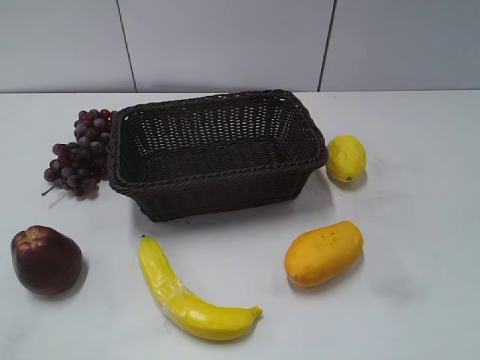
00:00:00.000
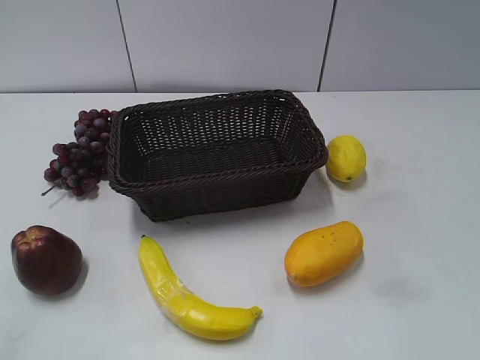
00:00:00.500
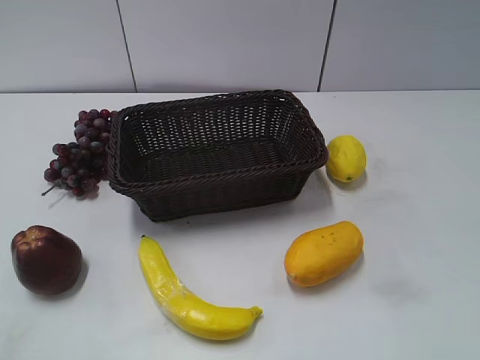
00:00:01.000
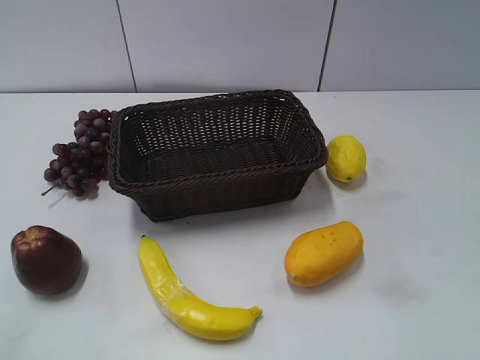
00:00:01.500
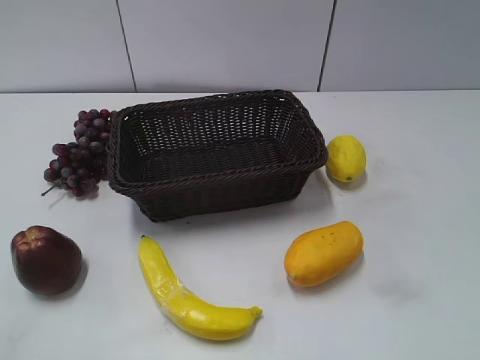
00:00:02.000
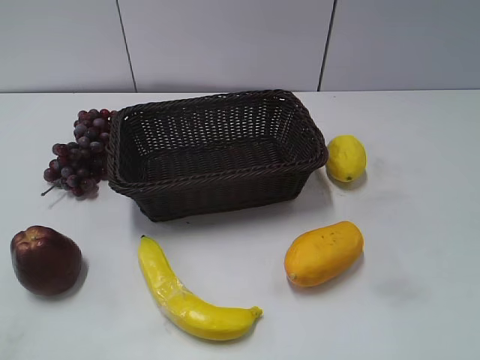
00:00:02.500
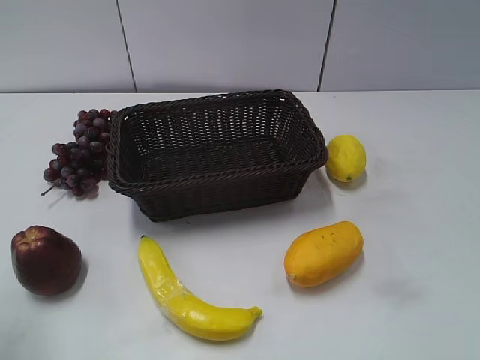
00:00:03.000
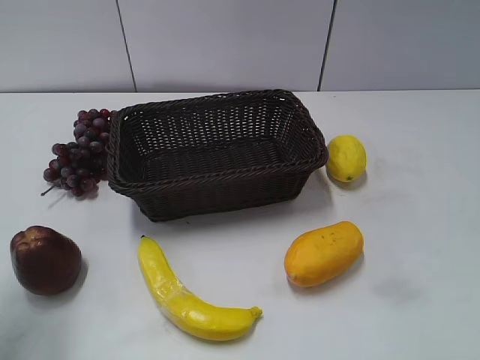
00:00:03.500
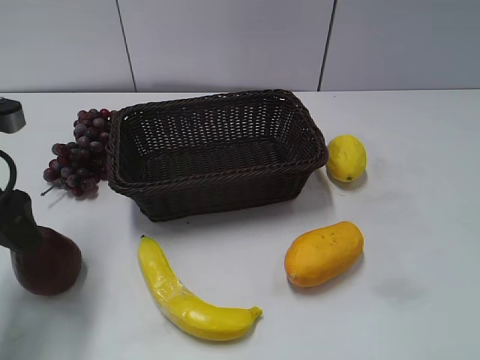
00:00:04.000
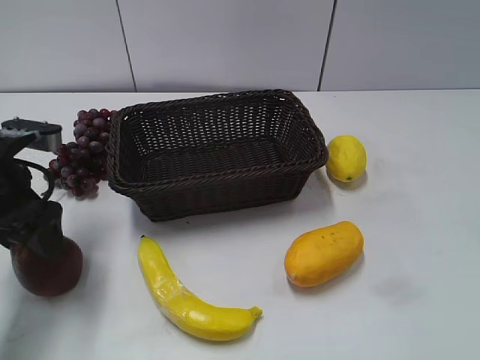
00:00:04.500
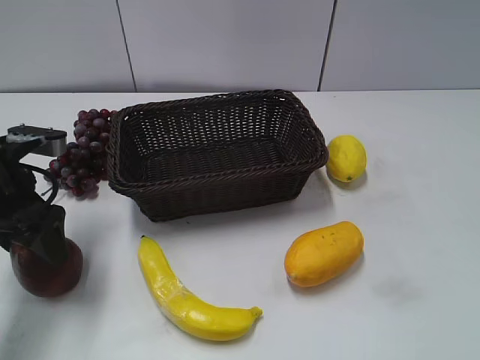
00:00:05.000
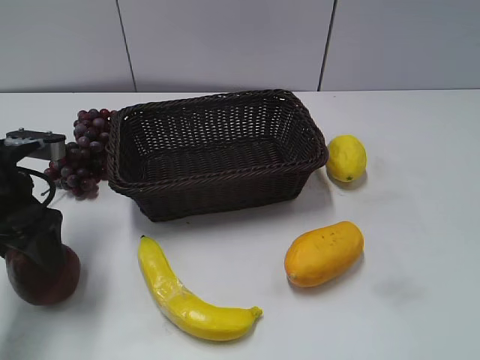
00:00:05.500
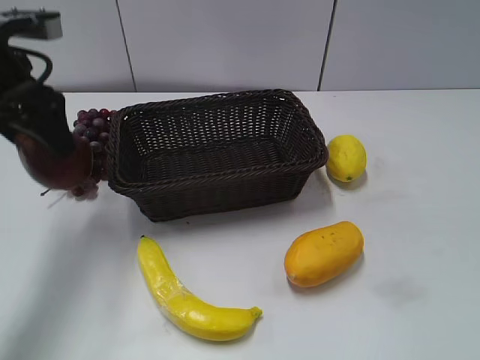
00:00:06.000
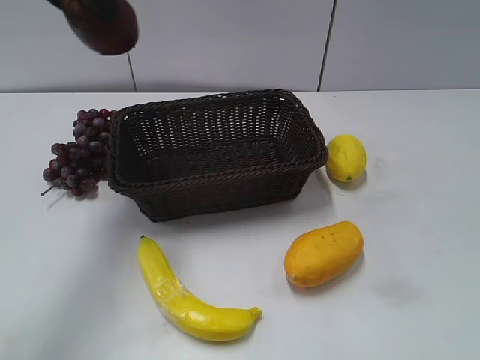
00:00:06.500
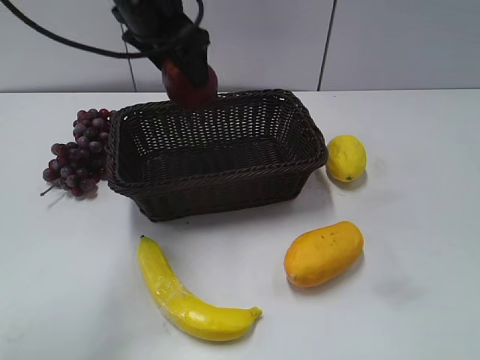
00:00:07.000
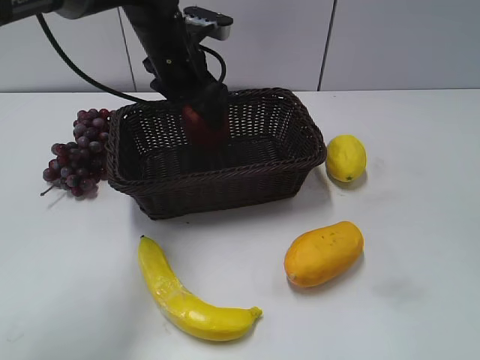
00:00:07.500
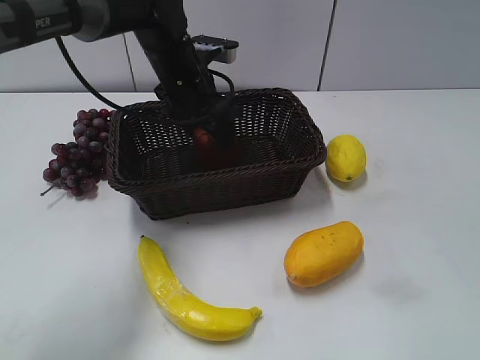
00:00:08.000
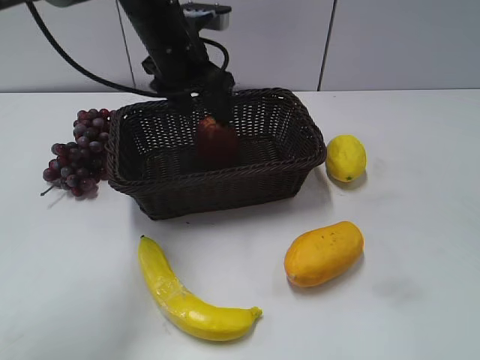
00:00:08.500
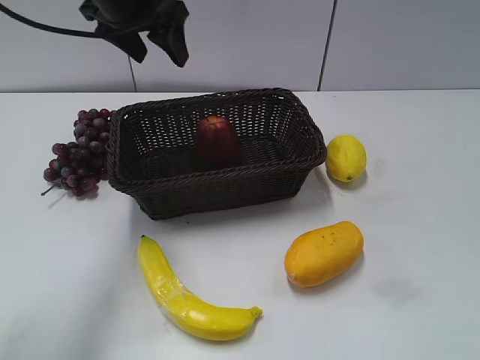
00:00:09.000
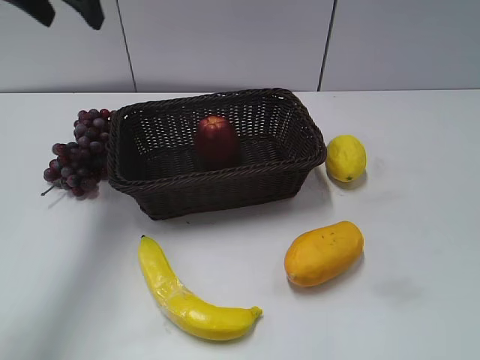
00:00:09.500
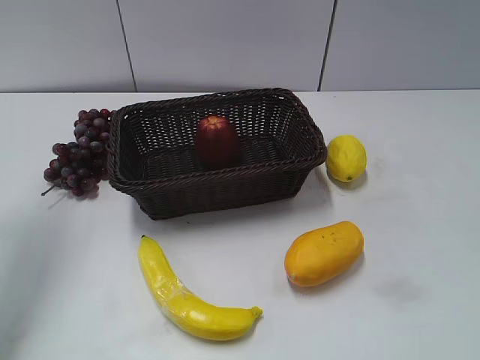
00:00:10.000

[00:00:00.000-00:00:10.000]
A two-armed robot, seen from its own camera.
Step, 00:00:04.000 to 00:00:04.500: Grasp the apple with left gripper.
Step, 00:00:05.000 to 00:00:08.000: Place the apple in the basket with left gripper.
00:00:02.000 to 00:00:04.000: The left gripper shifts about 25 cm forward, and opens up.
00:00:04.000 to 00:00:06.000: The left gripper travels forward and upward by roughly 10 cm.
00:00:06.000 to 00:00:08.000: The left gripper is displaced to the right, forward and downward by about 20 cm.
00:00:08.000 to 00:00:10.000: The left gripper heads to the left, upward and backward, covering some 30 cm.

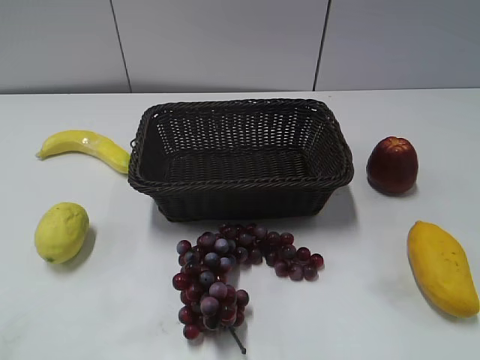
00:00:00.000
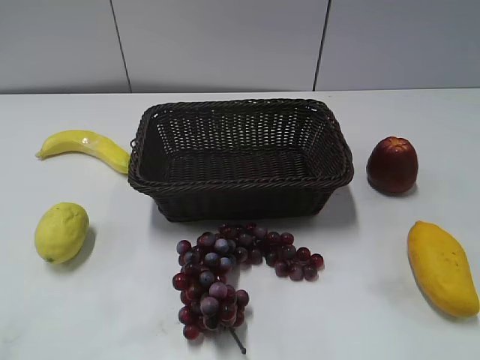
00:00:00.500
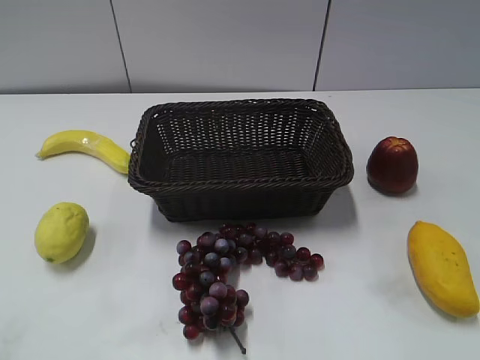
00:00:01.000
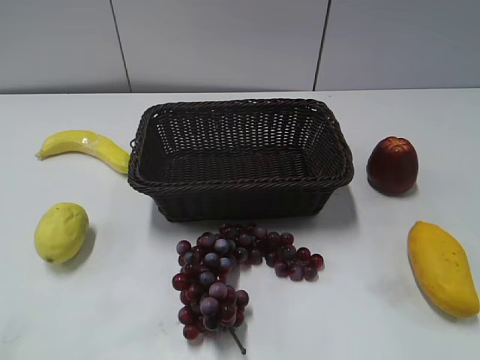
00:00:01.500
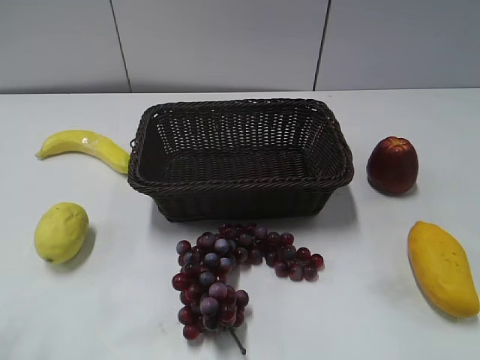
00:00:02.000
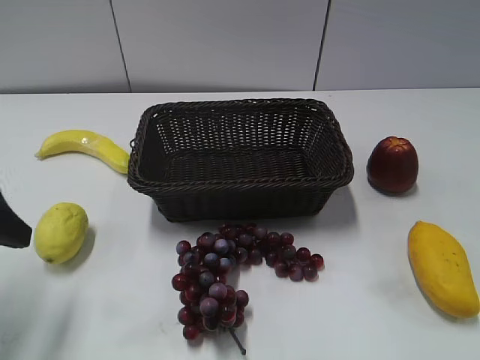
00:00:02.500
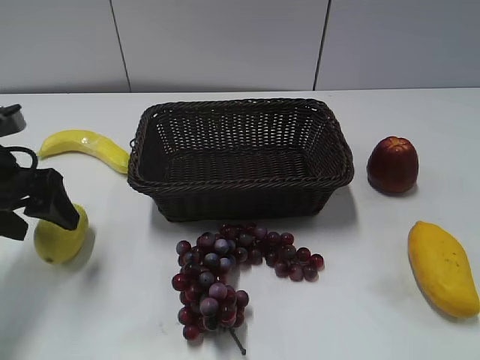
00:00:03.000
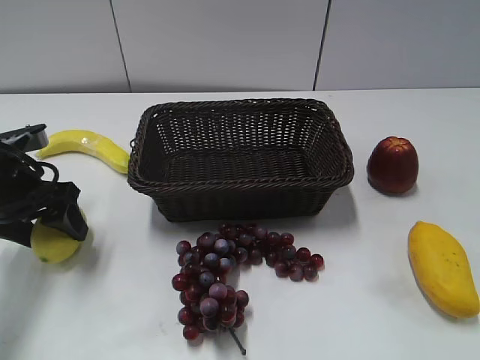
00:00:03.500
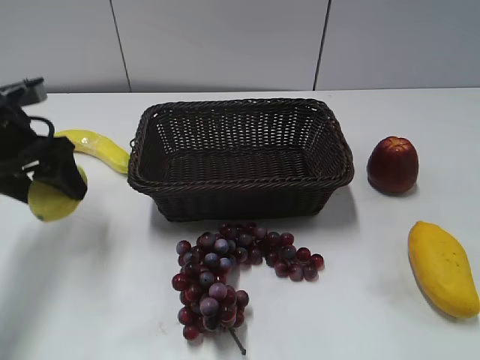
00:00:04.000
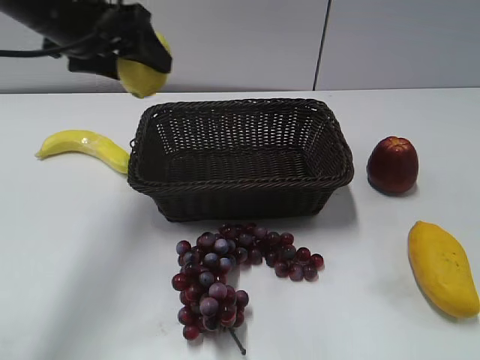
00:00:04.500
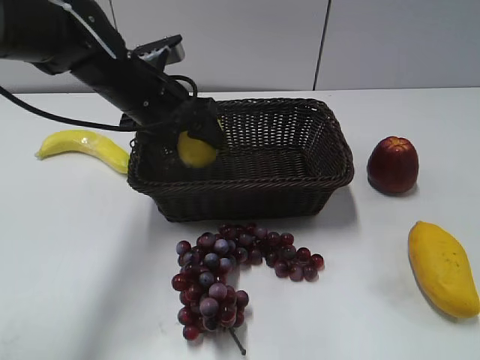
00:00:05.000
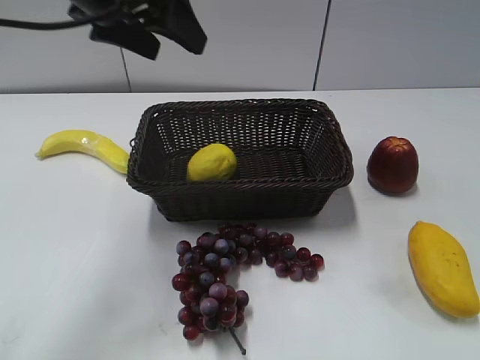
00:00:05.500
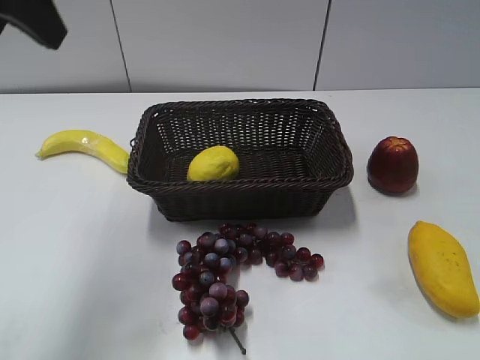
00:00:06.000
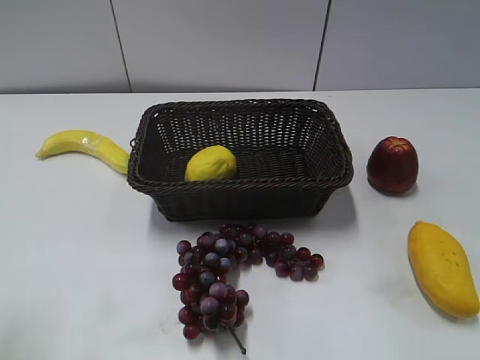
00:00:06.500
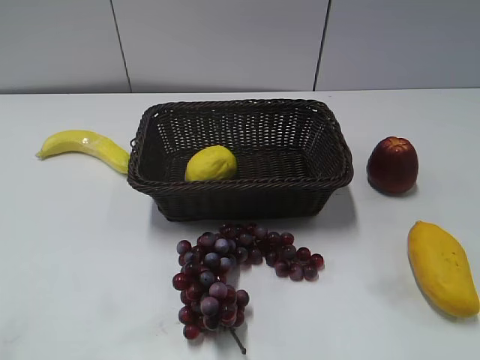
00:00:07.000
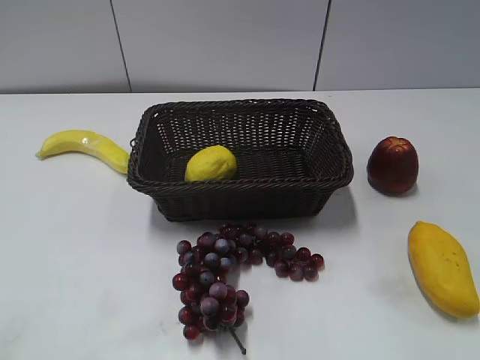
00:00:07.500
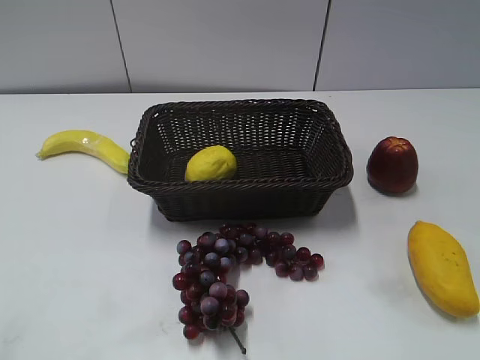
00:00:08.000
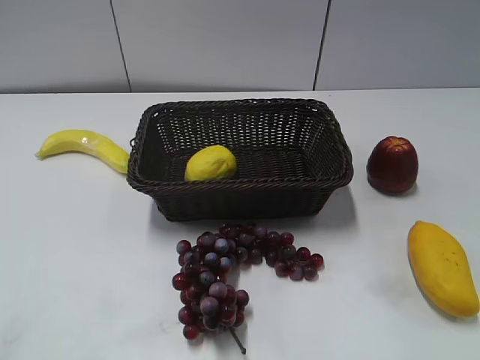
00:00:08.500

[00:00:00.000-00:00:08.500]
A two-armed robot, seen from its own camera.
Step, 00:00:02.500 to 00:00:03.500: Grasp the lemon with left gripper.
Step, 00:00:04.000 to 00:00:05.000: Place the lemon in the basket with left gripper.
00:00:02.000 to 00:00:04.000: The left gripper shifts roughly 25 cm forward.
00:00:04.000 to 00:00:06.500: The left gripper heads backward and upward, covering approximately 25 cm.

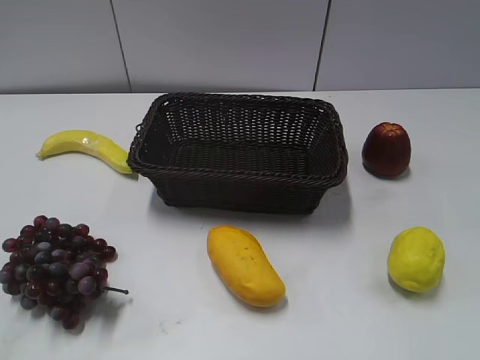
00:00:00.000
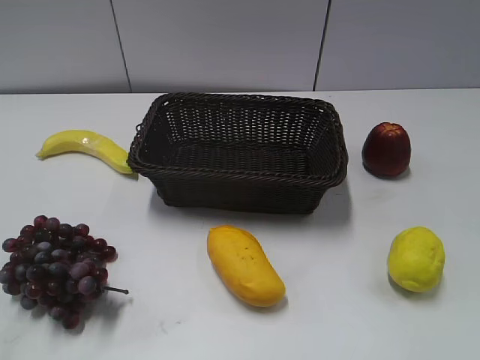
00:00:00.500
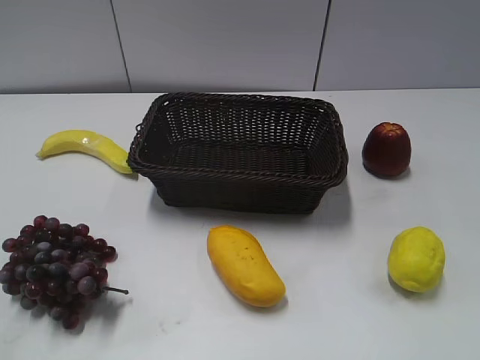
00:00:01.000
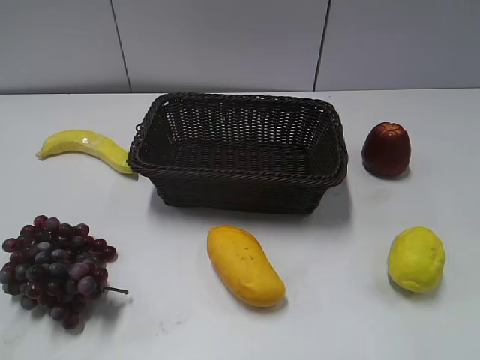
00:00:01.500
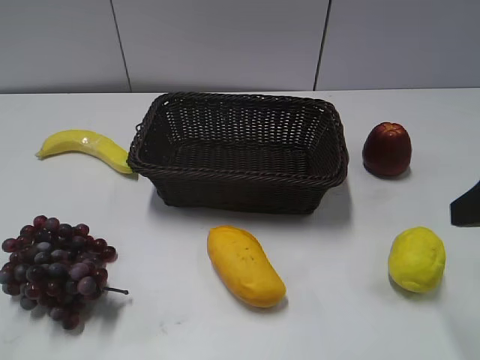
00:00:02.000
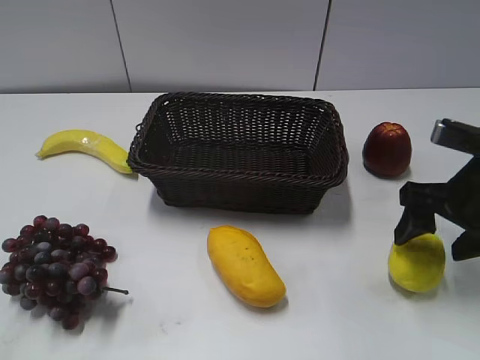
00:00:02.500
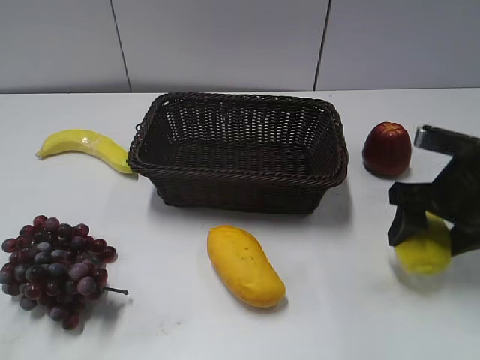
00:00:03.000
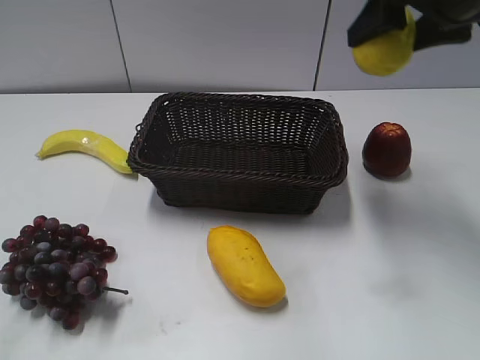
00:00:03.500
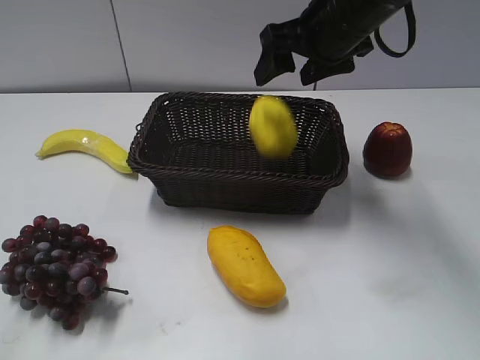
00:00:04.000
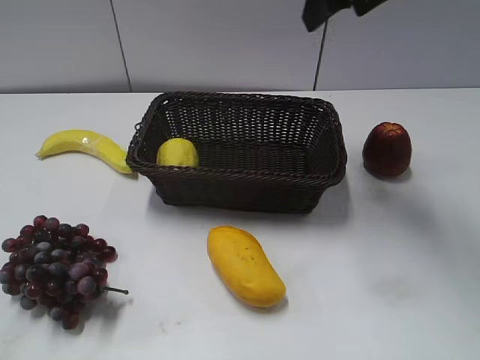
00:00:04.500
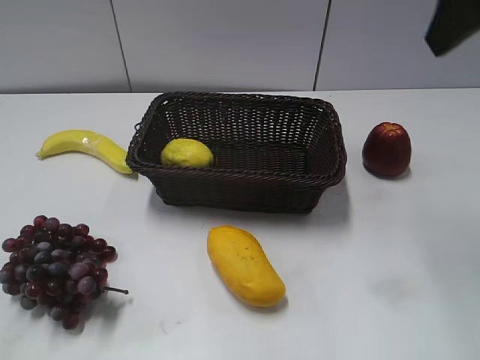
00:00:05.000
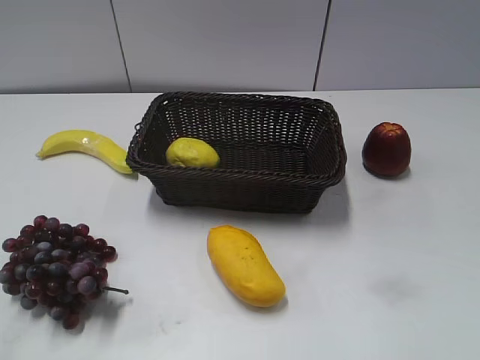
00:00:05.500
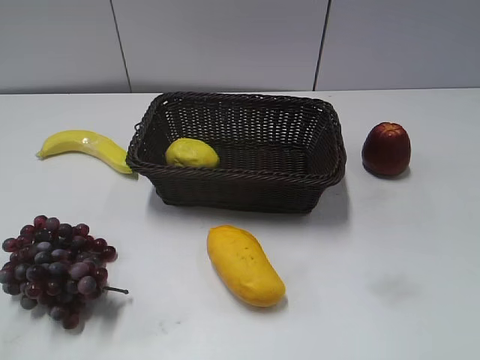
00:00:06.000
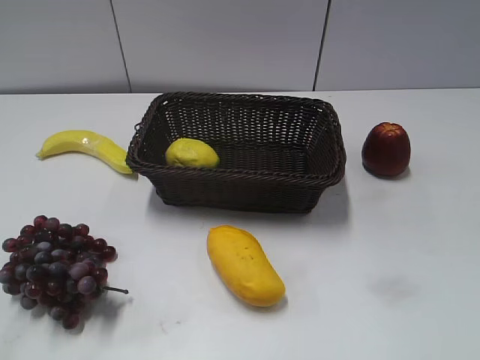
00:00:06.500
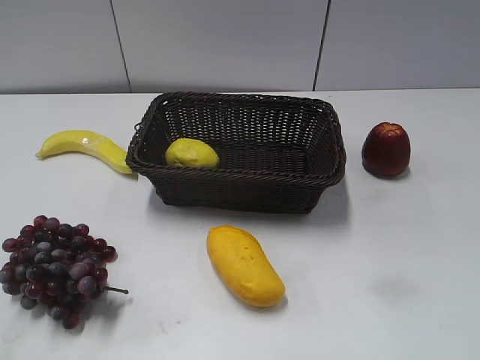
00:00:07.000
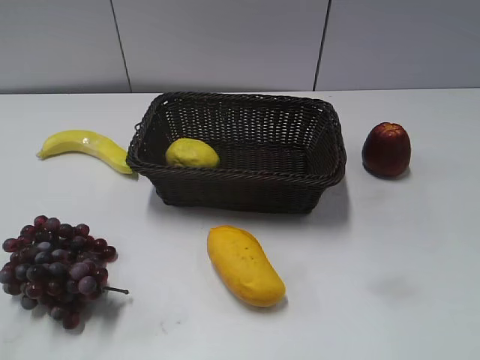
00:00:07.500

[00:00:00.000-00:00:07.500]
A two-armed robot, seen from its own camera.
Step, 00:00:02.000 to 00:00:03.000: Grasp the lemon with right gripper.
00:00:02.000 to 00:00:04.000: The right gripper moves forward and to the left, about 25 cm, and closes, then opens again.
00:00:04.000 to 00:00:05.500: The right gripper is displaced backward and to the right by roughly 30 cm, and closes up.
